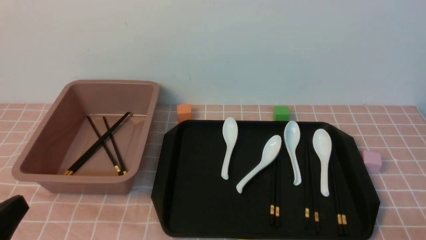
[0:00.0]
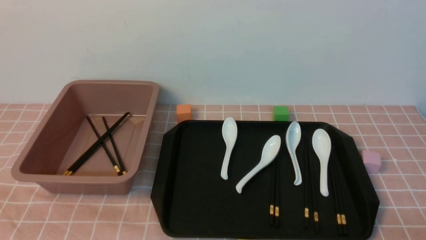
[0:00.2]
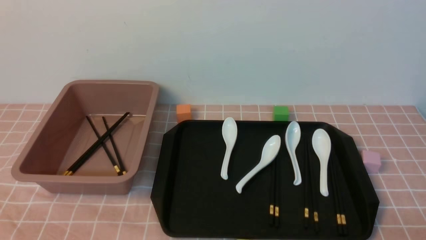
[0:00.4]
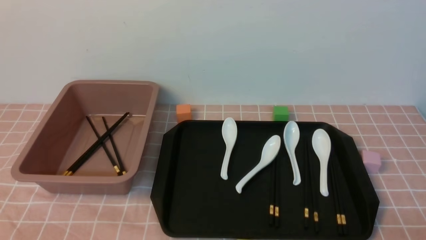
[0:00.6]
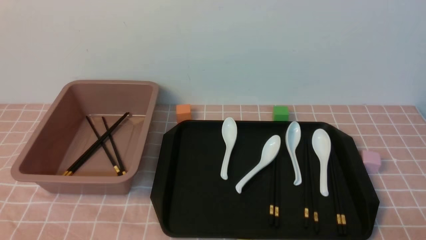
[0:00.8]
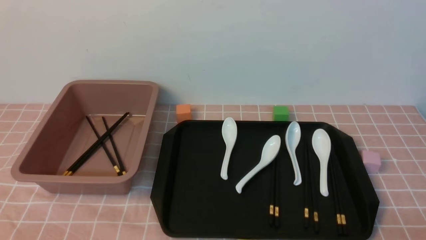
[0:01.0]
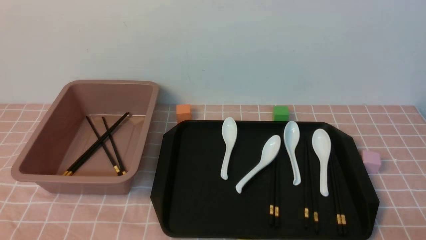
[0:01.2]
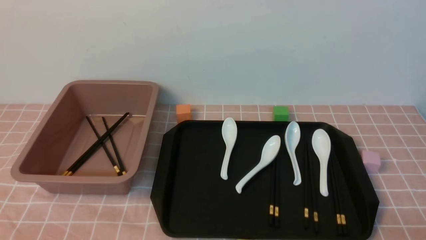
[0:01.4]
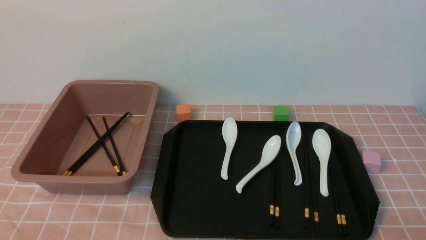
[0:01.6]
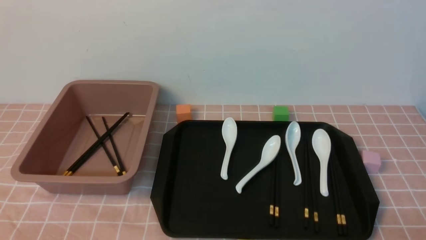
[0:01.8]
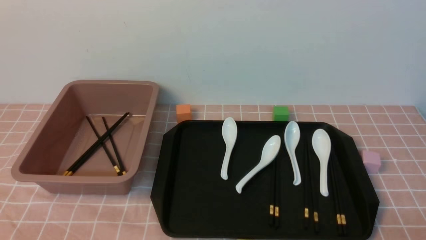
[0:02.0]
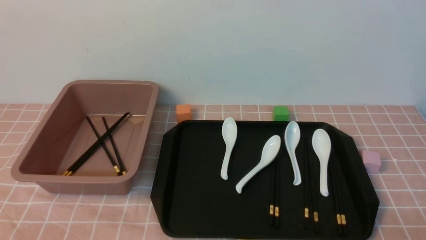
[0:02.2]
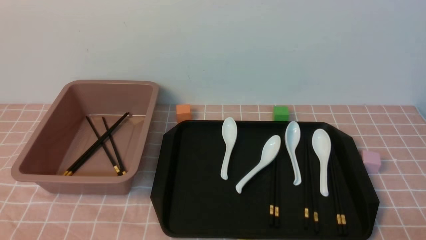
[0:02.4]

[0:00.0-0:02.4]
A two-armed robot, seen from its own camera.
0:00.0 to 0:01.2: The left gripper heads downward, covering about 5 cm.
0:01.2 to 0:02.4: Both grippers stay about where they are.
